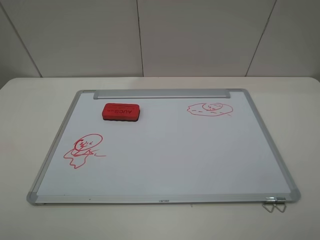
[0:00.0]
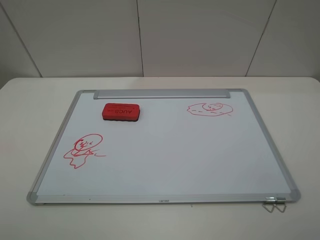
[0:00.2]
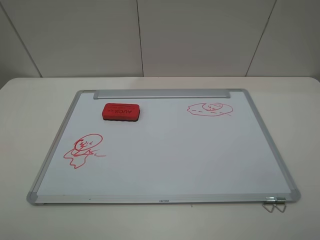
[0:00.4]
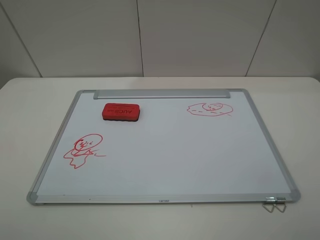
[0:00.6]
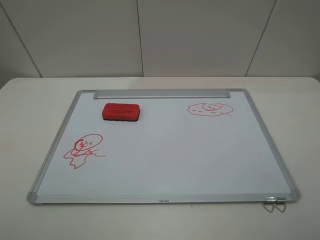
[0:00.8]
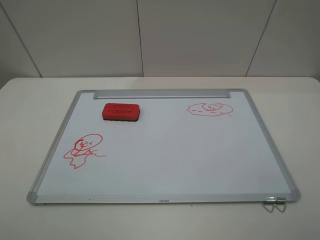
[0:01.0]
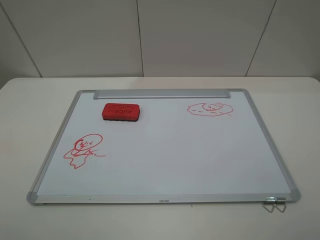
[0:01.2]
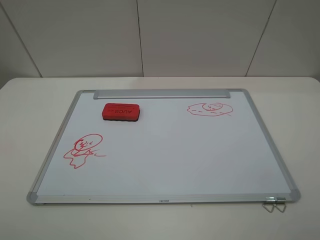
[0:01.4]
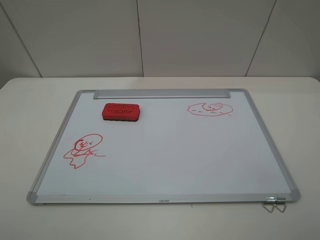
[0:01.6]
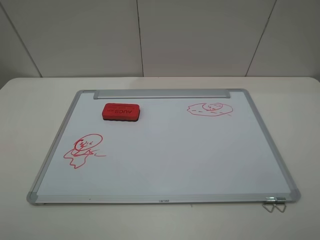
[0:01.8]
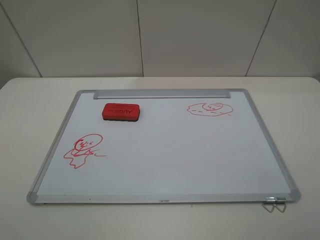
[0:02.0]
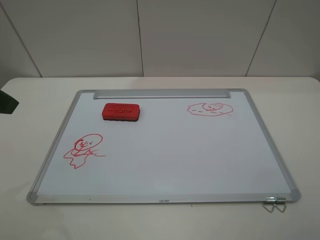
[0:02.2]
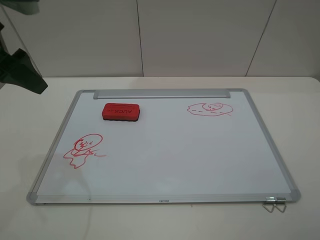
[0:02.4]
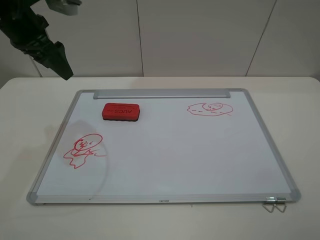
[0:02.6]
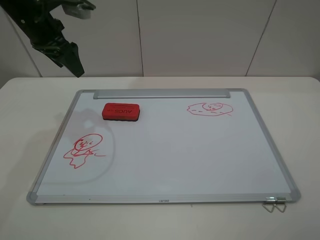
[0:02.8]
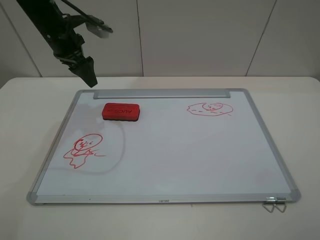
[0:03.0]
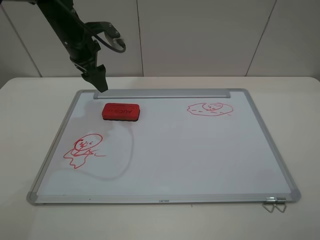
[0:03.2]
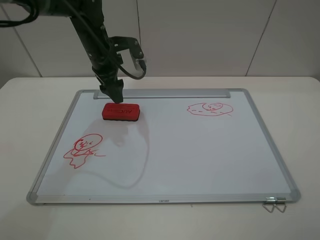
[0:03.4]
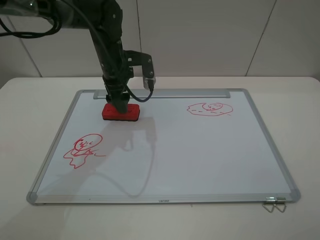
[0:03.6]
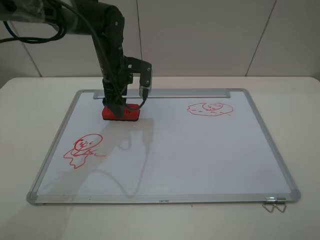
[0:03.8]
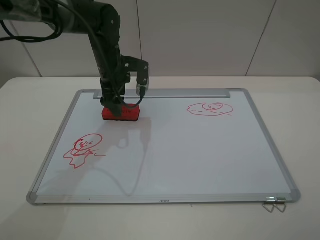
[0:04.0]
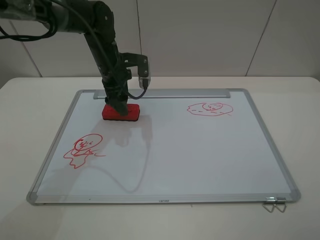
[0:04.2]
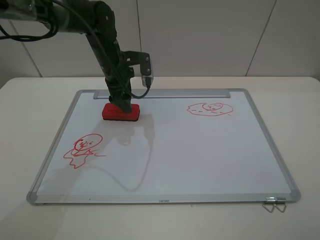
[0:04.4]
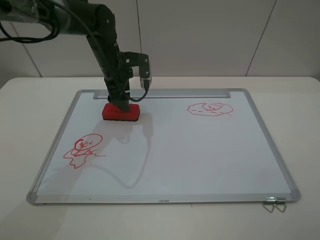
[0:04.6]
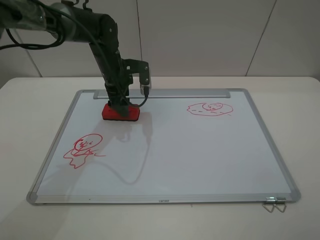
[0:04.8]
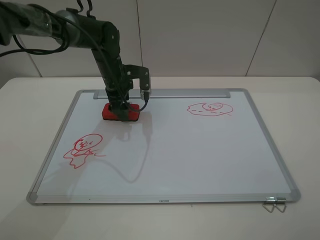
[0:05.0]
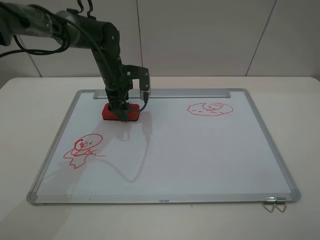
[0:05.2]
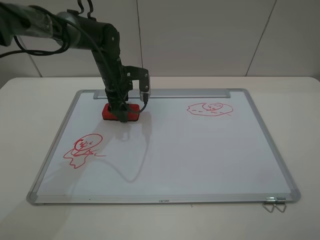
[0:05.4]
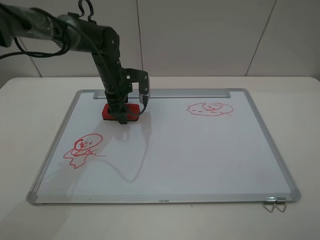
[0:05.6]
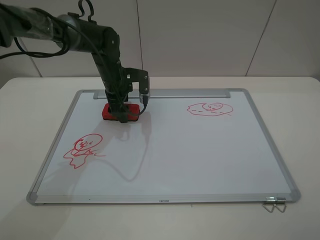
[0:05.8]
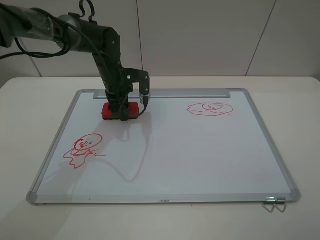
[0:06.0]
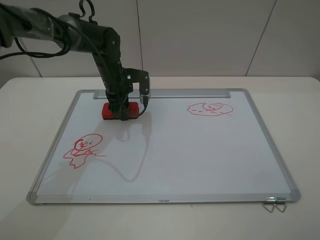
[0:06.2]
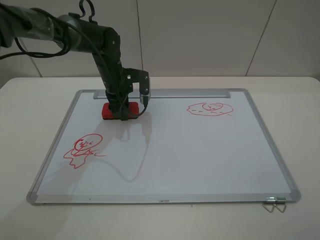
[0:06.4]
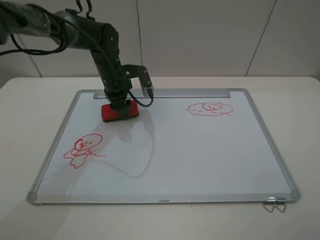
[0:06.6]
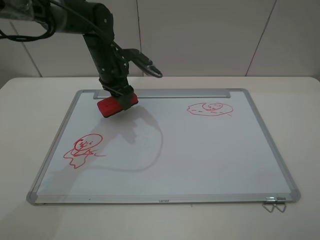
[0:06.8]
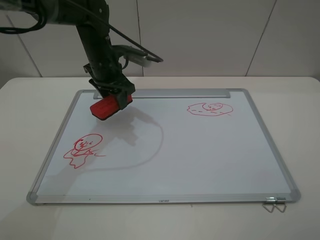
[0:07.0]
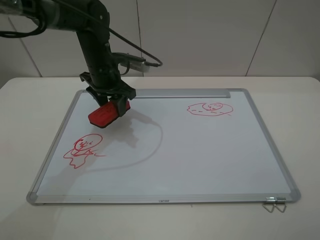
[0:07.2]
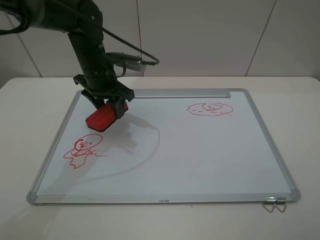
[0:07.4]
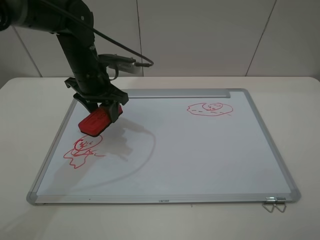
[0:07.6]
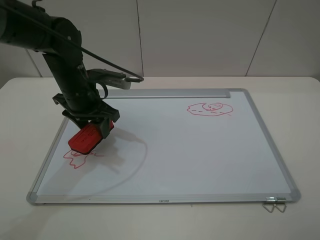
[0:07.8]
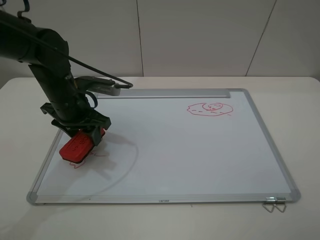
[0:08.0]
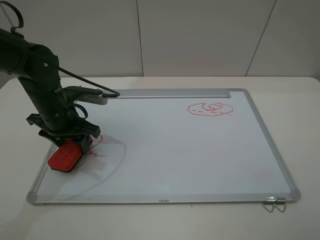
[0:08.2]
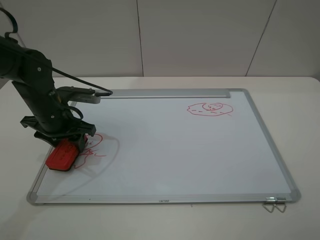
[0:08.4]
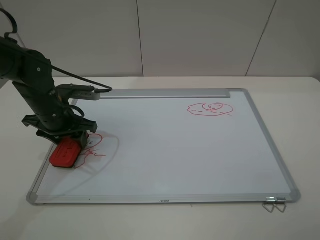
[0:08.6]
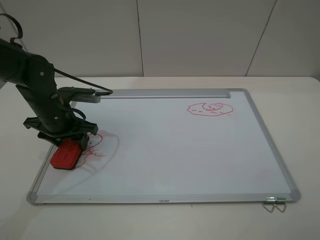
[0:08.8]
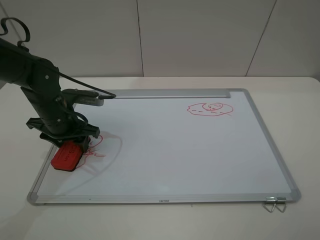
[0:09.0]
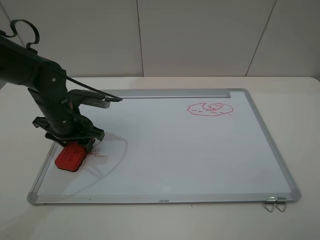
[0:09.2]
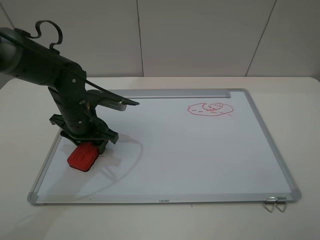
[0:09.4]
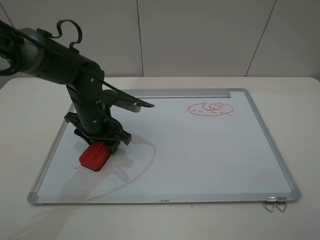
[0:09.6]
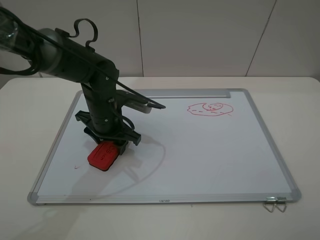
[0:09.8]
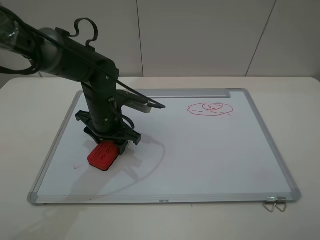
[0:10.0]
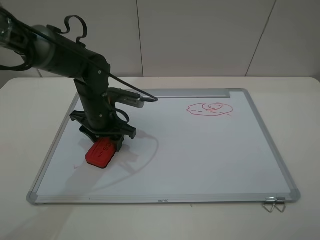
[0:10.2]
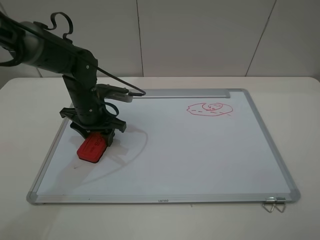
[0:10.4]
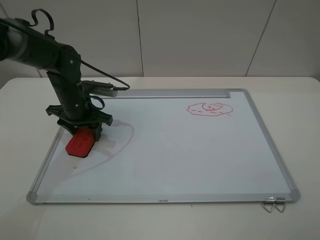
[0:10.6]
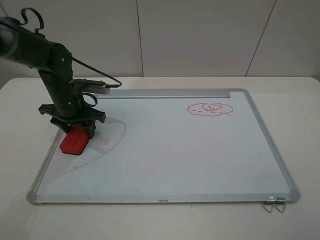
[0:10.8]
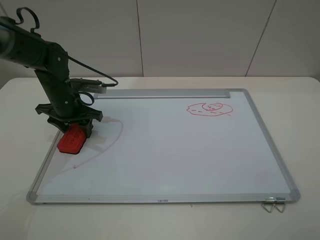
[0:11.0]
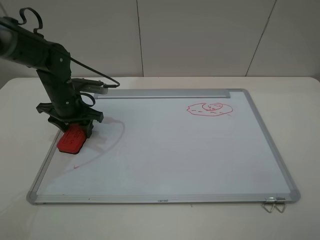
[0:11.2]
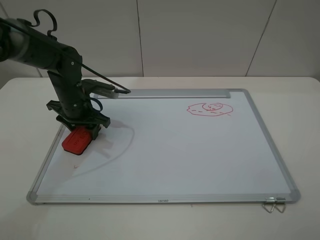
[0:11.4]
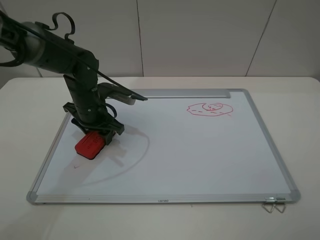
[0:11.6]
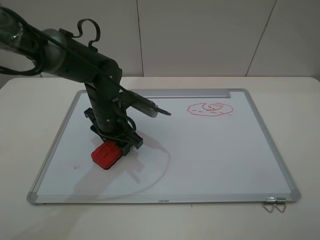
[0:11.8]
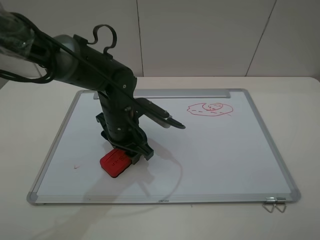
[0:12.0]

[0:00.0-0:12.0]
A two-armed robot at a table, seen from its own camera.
Step, 0:00.0 to 0:06.0: Grasp the eraser with the left gripper.
0:01.6 to 0:03.0: The left gripper travels forward by some 40 cm.
0:03.0 to 0:04.4: The left gripper moves to the right and downward, about 10 cm.
0:04.4 to 0:06.0: The left gripper closes up.
0:06.0 to 0:07.6: The left gripper goes approximately 10 cm backward and upward.
0:07.6 to 0:09.0: The left gripper heads to the left, downward and backward, covering roughly 10 cm.
0:10.4 to 0:12.0: The left gripper goes about 10 cm to the right and backward.

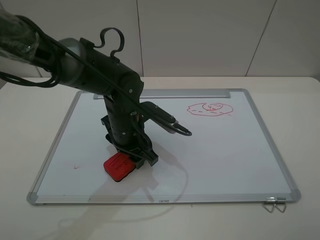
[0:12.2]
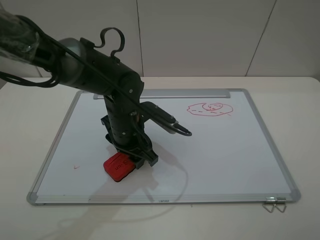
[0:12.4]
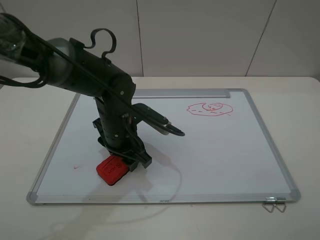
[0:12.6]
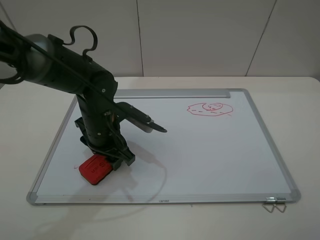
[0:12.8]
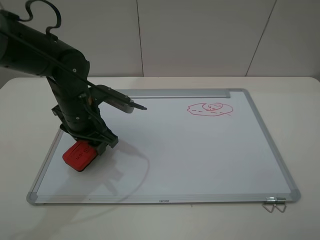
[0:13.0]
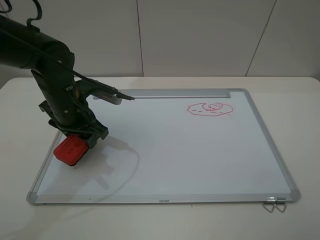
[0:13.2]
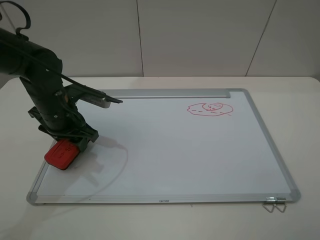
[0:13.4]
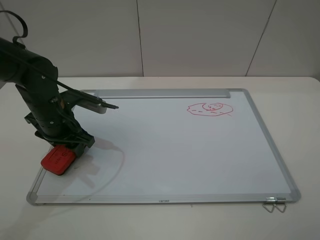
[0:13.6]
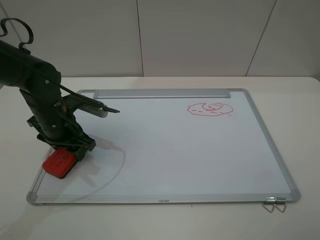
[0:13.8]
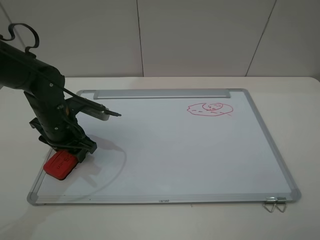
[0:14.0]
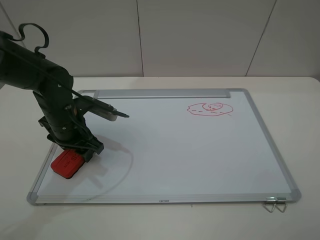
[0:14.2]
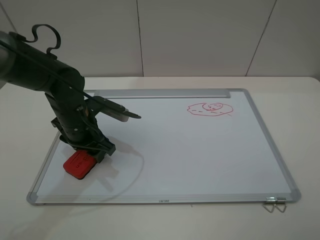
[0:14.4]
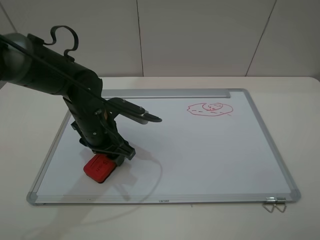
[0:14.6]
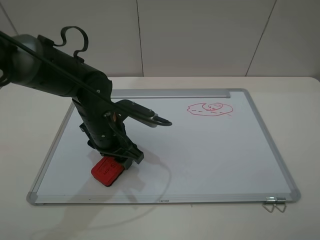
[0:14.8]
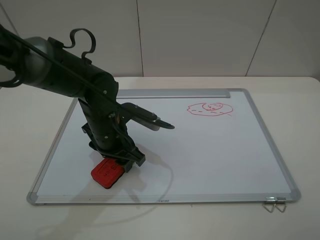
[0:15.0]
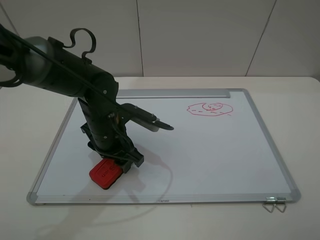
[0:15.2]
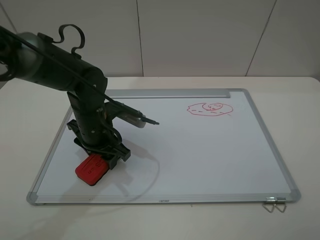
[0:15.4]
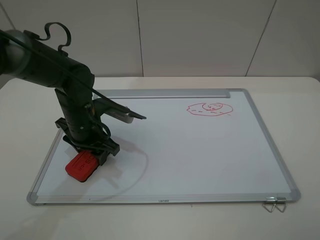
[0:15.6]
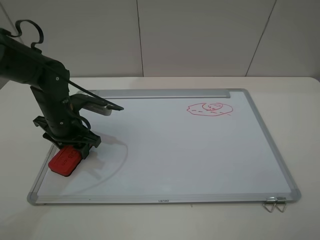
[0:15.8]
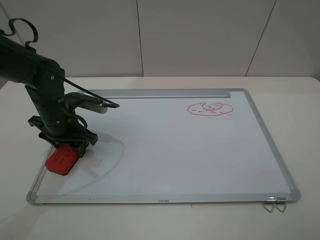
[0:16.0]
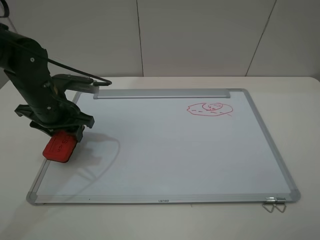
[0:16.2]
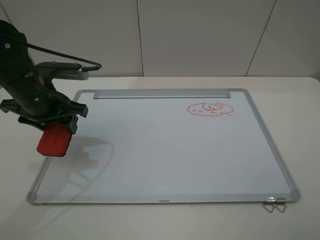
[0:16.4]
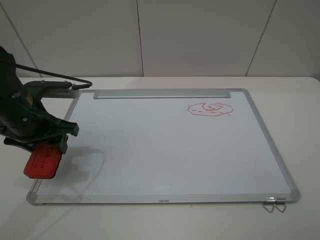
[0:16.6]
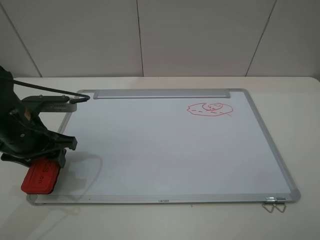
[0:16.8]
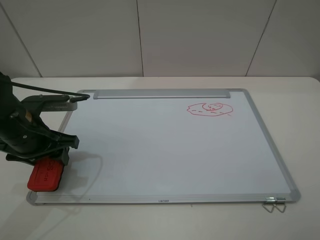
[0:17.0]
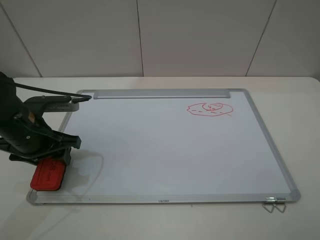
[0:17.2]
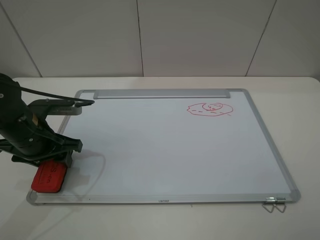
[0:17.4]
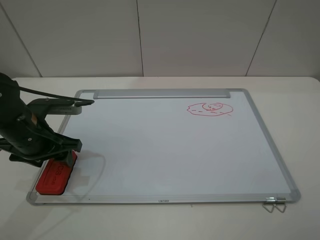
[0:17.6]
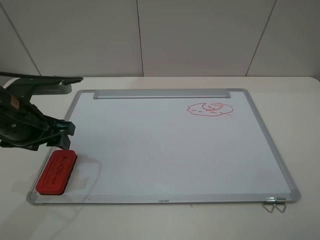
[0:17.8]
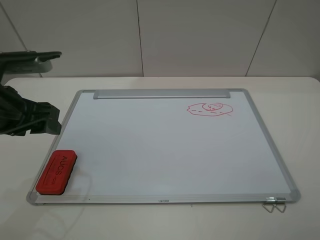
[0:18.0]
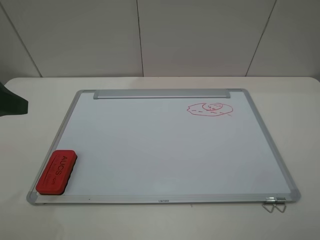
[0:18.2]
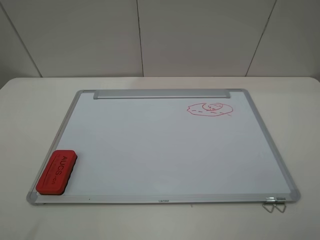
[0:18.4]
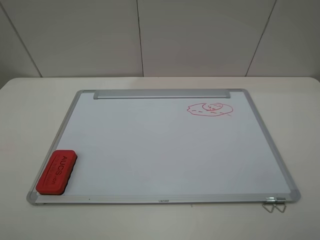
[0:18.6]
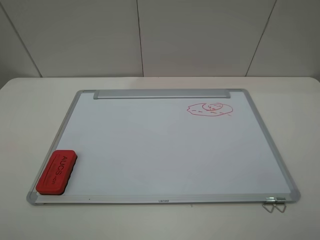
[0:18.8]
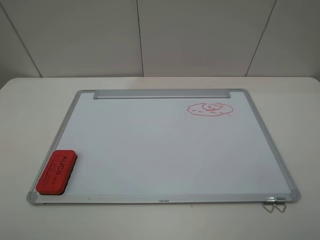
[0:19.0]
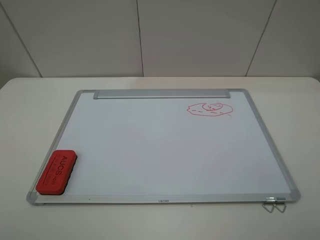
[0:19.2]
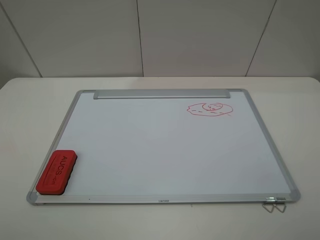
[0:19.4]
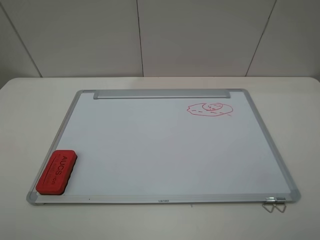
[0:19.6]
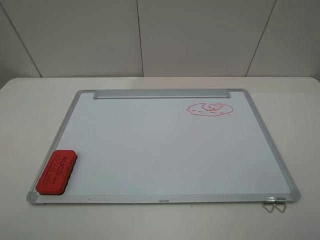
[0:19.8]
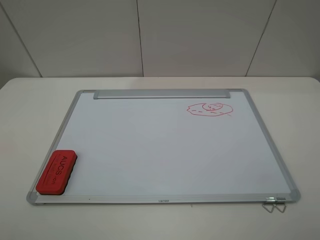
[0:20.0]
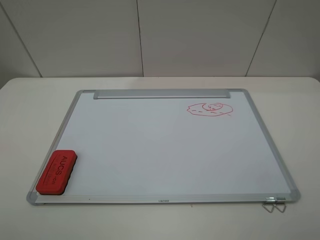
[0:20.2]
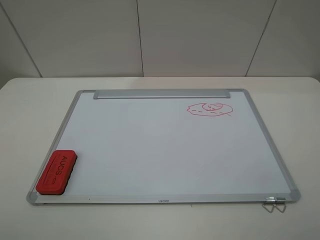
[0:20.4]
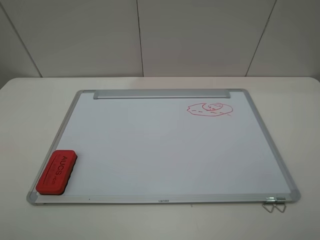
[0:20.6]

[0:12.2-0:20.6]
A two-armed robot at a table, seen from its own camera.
Step, 0:12.2 to 0:16.0: Grasp the eraser and wipe the blackboard with the left gripper.
Step, 0:16.2 to 0:17.8: Place the eraser with the left gripper.
0:12.2 to 0:13.6: The left gripper goes some 15 cm to the left.
0:13.6 to 0:15.0: The left gripper travels to the right by approximately 10 cm.
0:15.0 to 0:16.4: The left gripper is displaced to the left and upward by about 15 cm.
0:16.4 to 0:17.8: The left gripper is displaced backward by about 5 cm, and opens its fingers.
0:17.8 to 0:19.2: The left gripper heads backward and upward, covering some 25 cm, and opens.

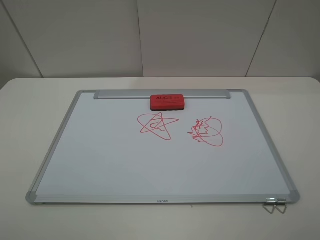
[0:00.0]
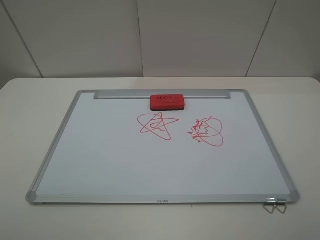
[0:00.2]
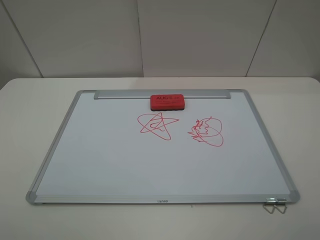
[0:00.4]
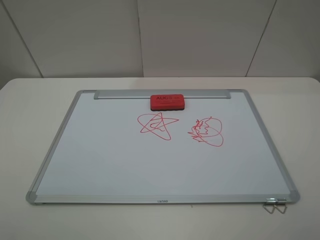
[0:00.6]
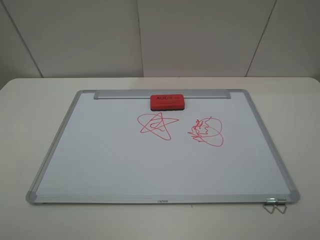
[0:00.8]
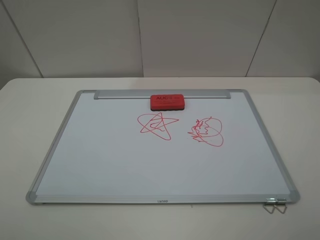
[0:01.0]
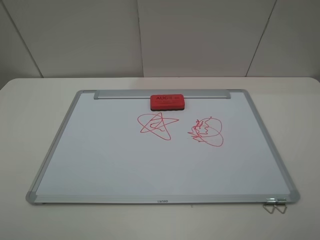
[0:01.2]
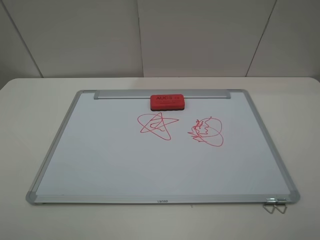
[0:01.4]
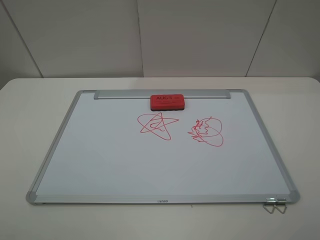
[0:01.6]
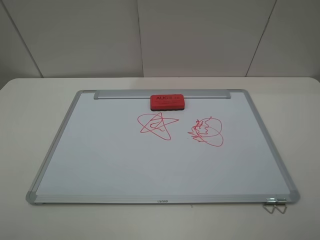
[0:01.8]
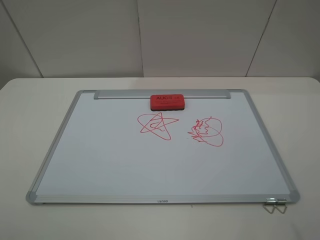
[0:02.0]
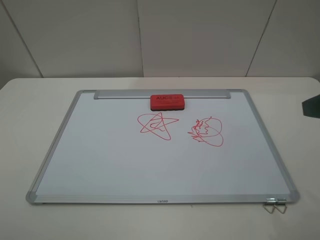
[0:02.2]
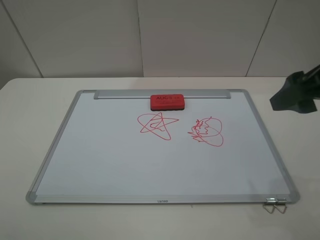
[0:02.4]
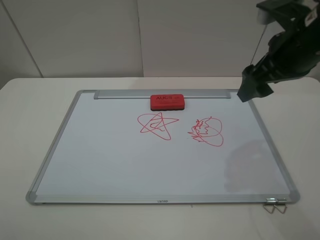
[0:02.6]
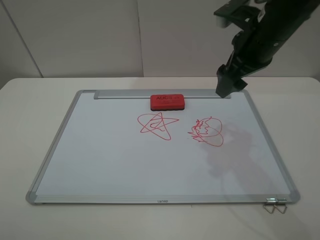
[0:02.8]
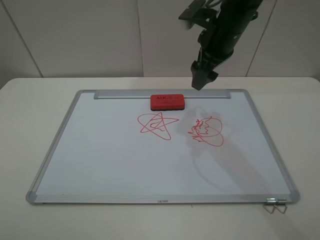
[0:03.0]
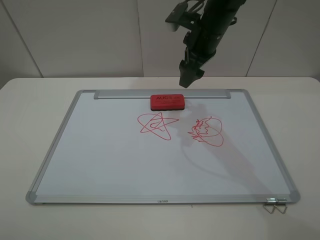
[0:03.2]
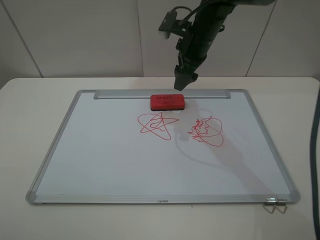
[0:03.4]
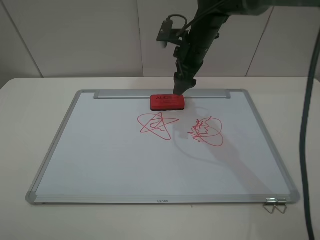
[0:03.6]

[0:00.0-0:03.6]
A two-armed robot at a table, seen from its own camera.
0:01.8 to 0:03.6: The right gripper is displaced forward and to the left by some 40 cm.
